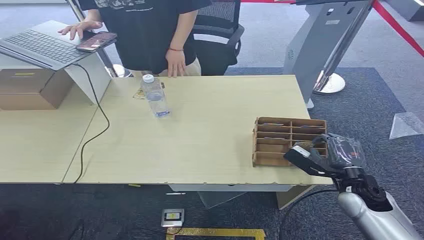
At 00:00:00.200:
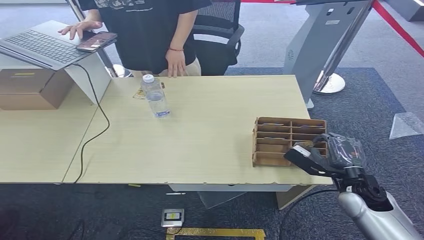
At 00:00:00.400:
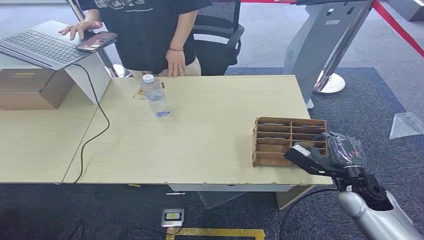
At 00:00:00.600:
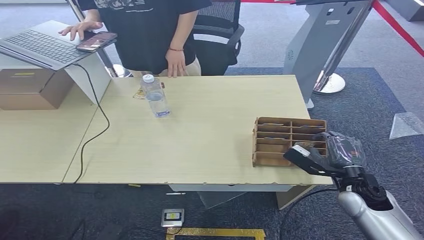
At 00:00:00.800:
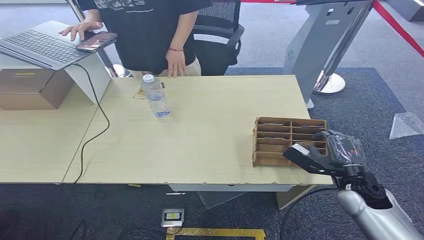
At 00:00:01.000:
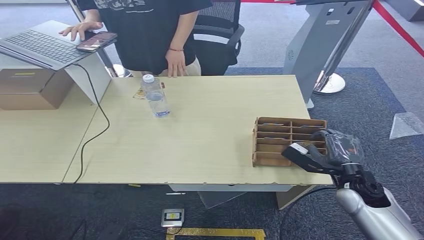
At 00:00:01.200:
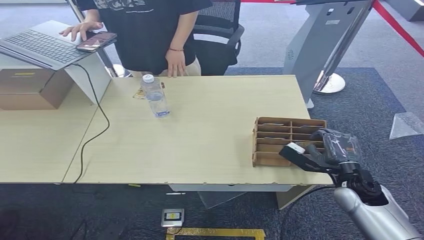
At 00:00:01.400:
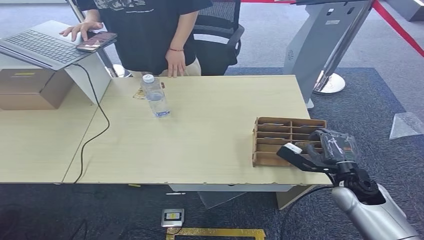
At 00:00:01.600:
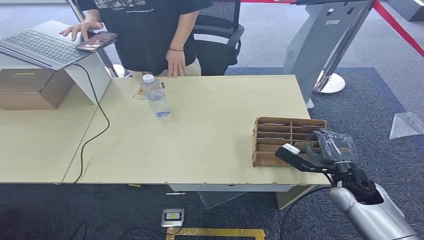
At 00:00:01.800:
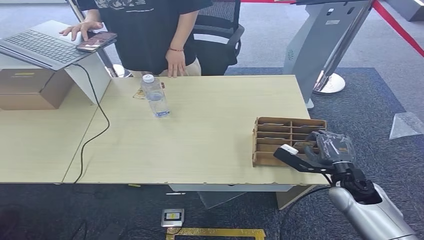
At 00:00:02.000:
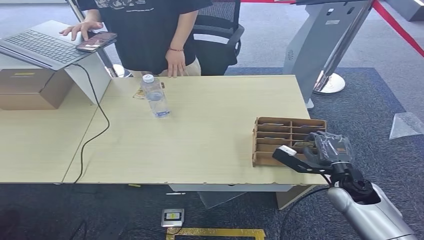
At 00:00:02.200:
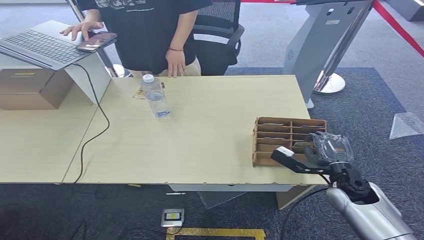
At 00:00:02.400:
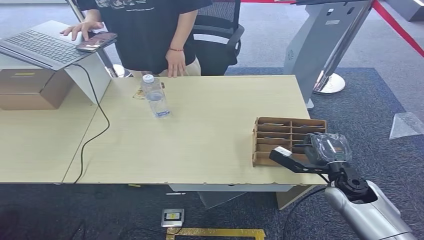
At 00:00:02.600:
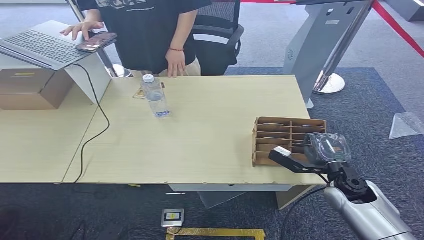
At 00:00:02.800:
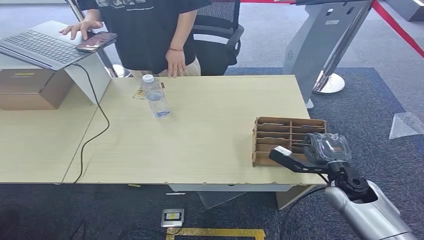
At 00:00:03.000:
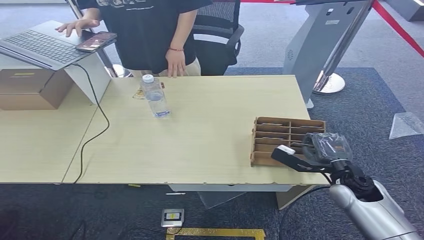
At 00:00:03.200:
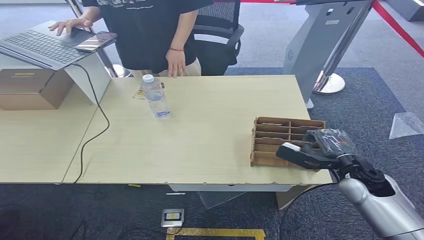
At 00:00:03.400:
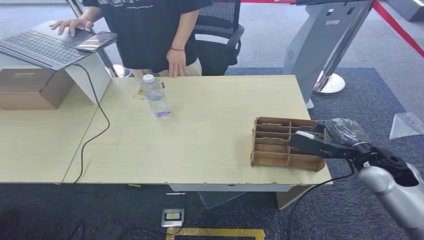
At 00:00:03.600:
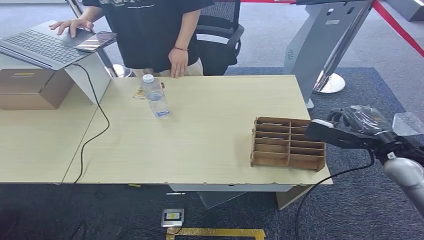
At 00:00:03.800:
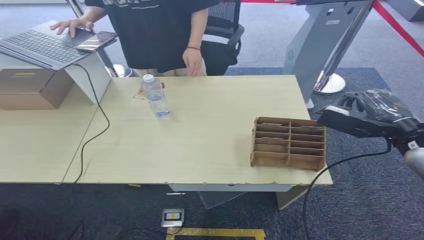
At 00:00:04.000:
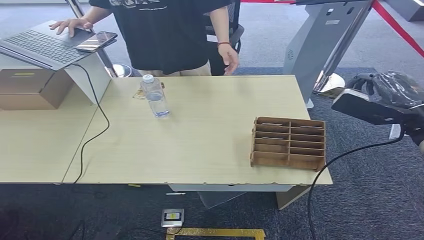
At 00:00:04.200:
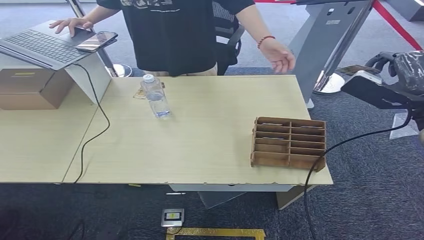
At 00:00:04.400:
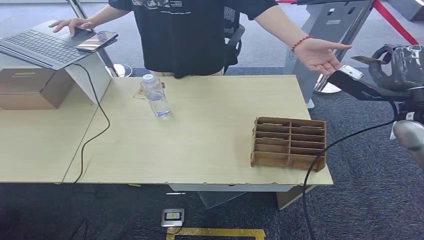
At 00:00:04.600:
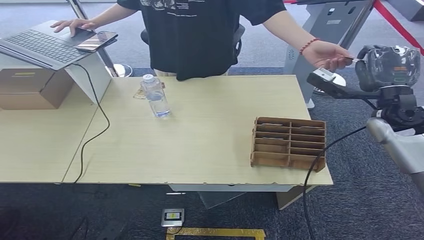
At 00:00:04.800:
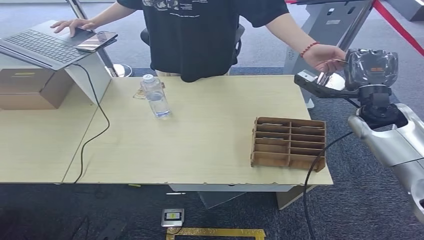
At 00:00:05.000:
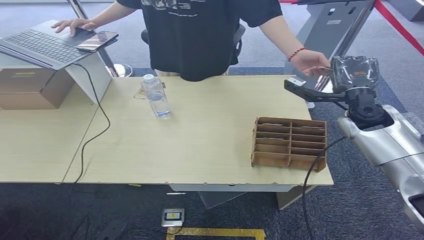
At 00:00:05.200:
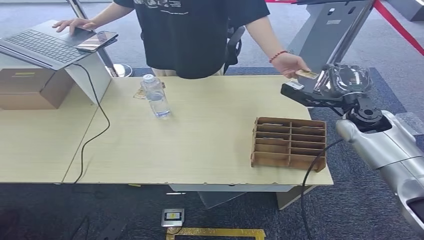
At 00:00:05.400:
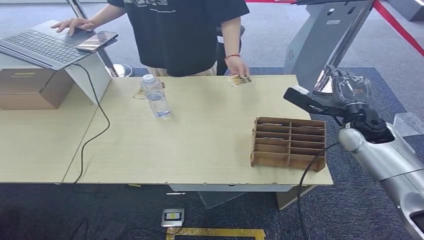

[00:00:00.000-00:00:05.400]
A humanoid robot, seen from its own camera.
Step, 00:00:00.000 to 00:00:03.400: Pick up the key card from the card box.
Step, 00:00:03.800 to 00:00:05.400: Hand the key card to the target.
00:00:01.400 to 00:00:02.800: The hands make only small movements.
00:00:02.800 to 00:00:04.000: The right hand moves upward and to the right, approximately 20 cm.
00:00:04.000 to 00:00:05.400: The right hand shifts roughly 15 cm forward, downward and to the left.

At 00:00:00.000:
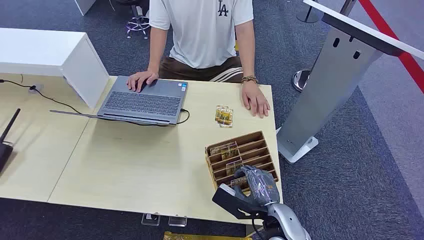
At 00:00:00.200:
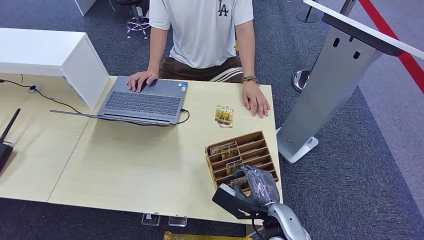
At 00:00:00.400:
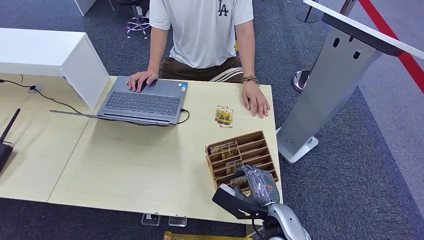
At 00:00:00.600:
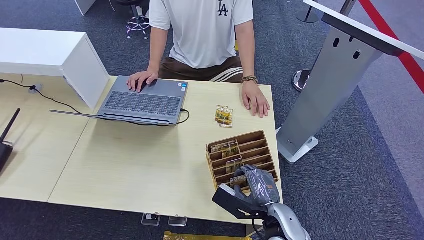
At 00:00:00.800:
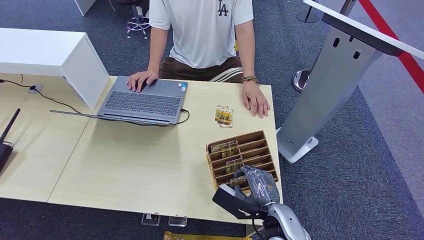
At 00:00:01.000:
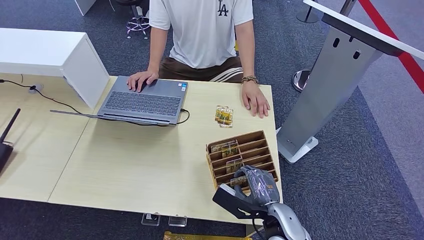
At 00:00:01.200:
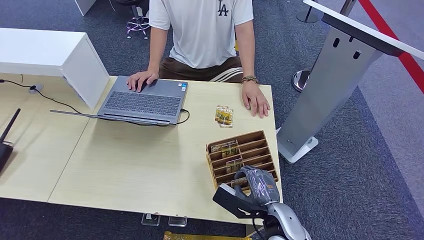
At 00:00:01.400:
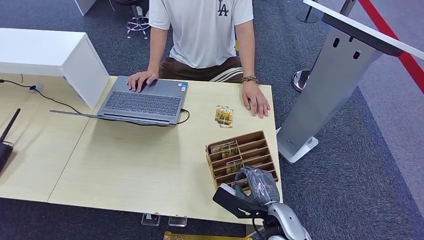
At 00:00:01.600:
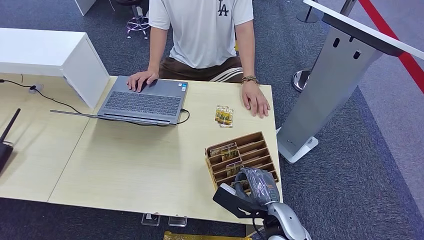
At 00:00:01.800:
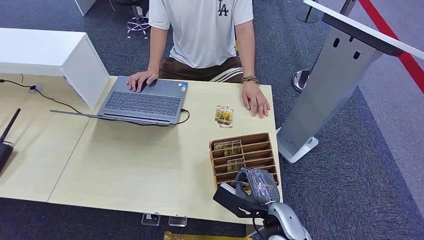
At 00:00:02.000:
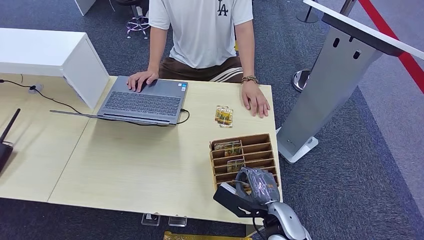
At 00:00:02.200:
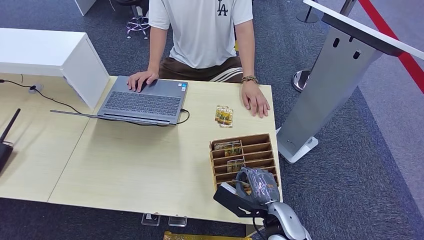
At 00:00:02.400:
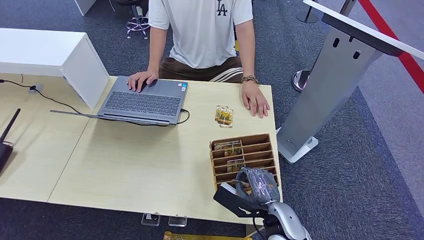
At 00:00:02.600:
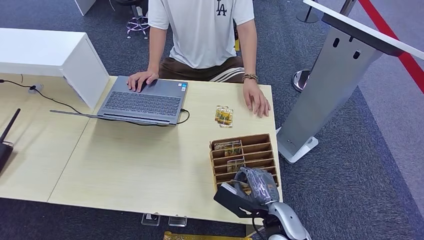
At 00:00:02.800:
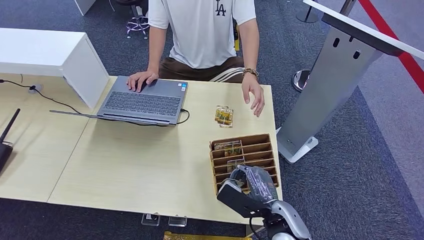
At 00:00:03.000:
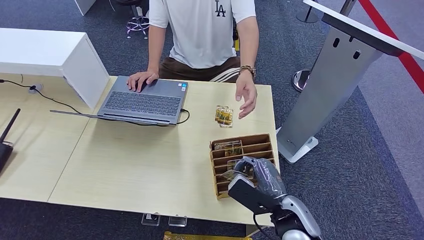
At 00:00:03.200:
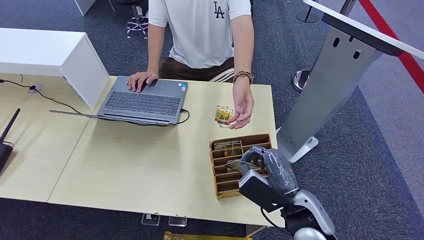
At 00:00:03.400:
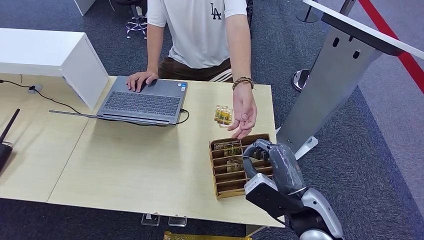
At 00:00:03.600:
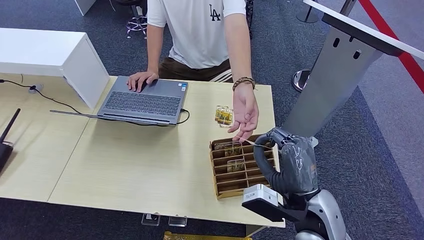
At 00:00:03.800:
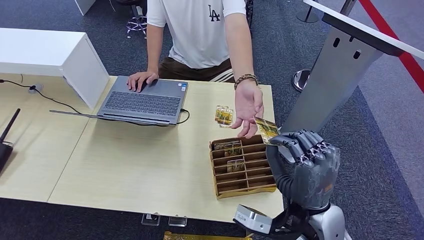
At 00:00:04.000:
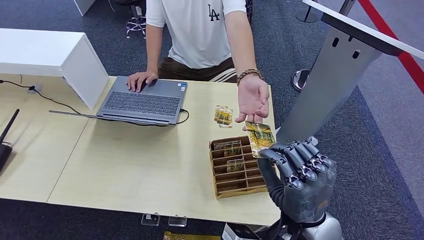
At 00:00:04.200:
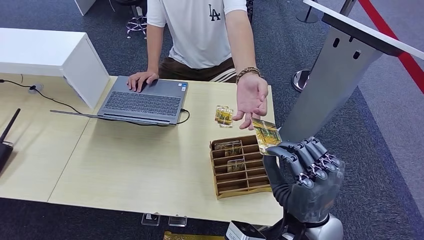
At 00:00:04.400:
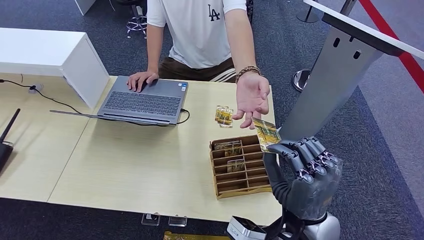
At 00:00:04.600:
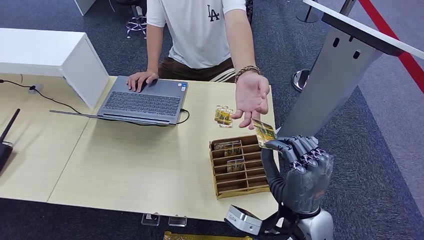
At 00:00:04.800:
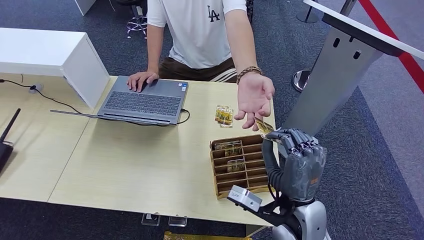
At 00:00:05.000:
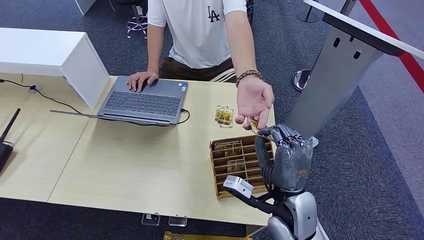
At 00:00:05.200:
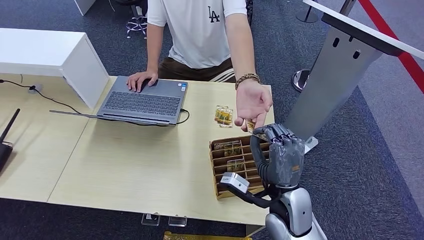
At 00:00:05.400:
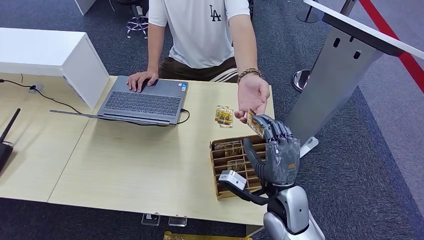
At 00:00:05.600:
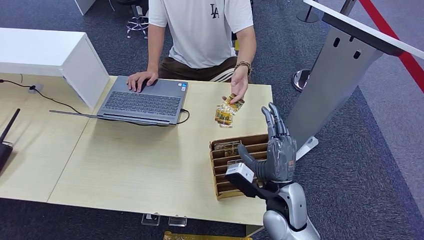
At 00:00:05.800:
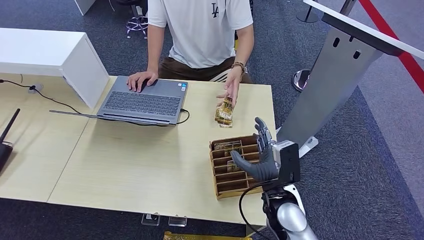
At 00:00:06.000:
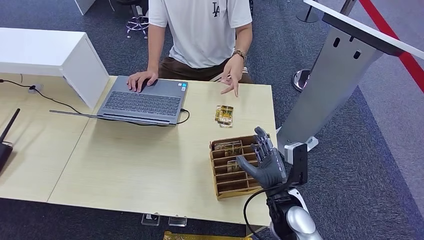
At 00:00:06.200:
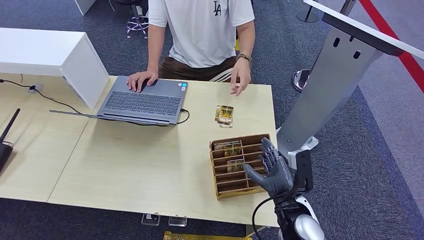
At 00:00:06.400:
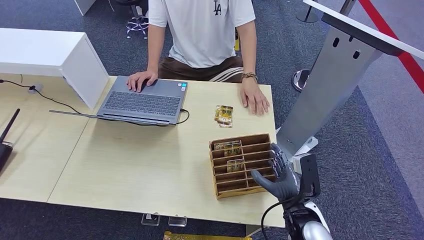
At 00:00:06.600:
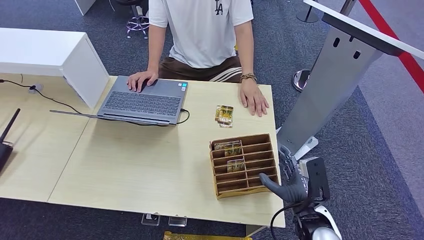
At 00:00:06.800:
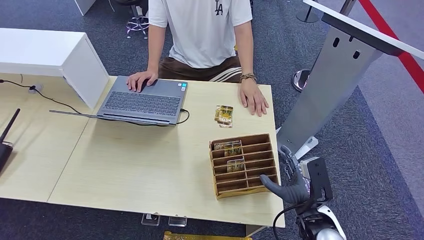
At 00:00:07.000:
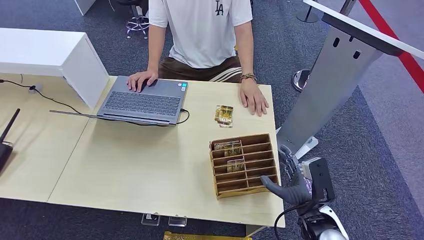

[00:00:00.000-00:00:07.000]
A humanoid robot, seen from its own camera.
Step, 00:00:00.000 to 00:00:03.200: Pick up the key card from the card box.
Step, 00:00:03.400 to 00:00:06.800: Hand the key card to the target.
00:00:01.400 to 00:00:02.800: There are only small adjustments of the hands.
00:00:02.800 to 00:00:04.200: The right hand is displaced upward by about 10 cm.
00:00:04.200 to 00:00:05.600: The right hand moves downward and forward, some 10 cm.
00:00:05.600 to 00:00:07.000: The right hand shifts some 10 cm to the right.
